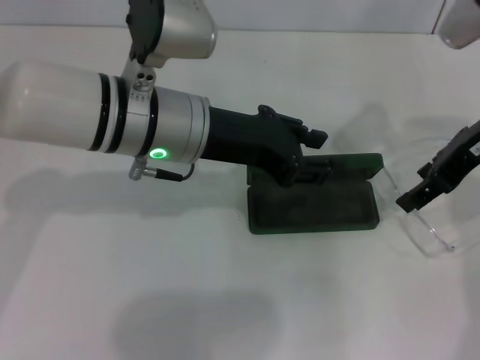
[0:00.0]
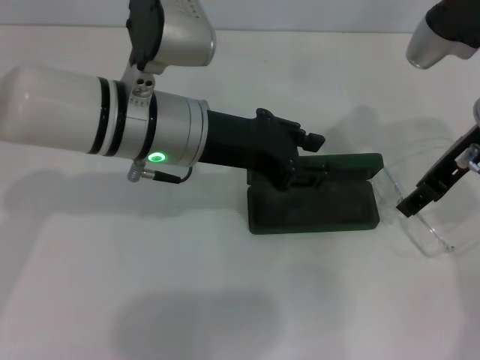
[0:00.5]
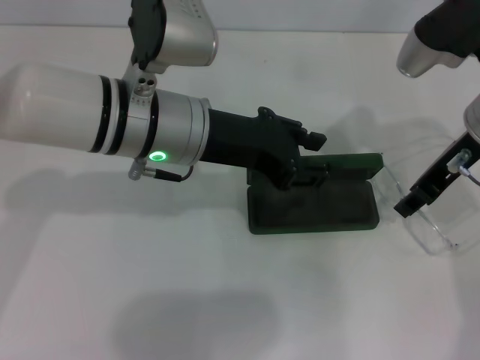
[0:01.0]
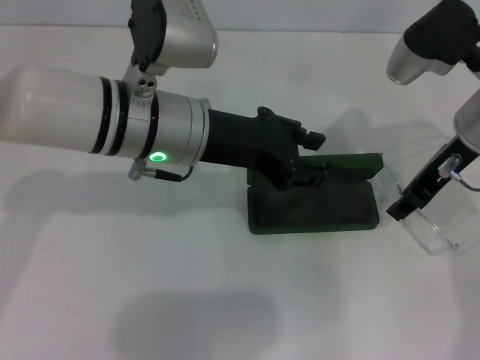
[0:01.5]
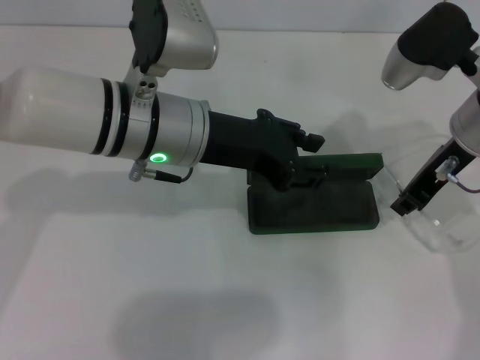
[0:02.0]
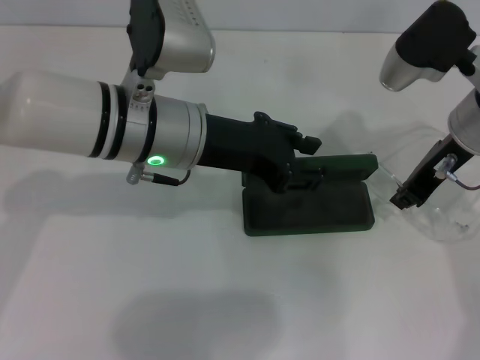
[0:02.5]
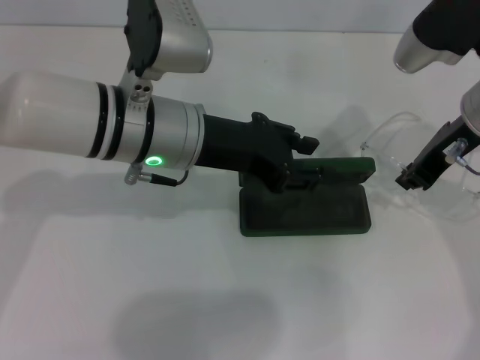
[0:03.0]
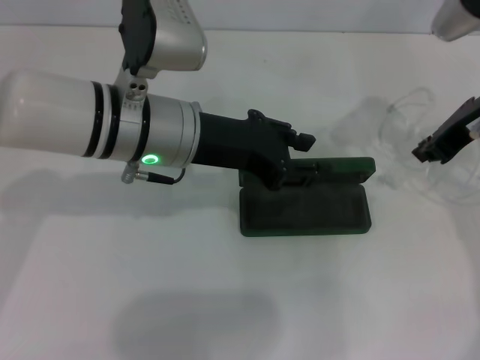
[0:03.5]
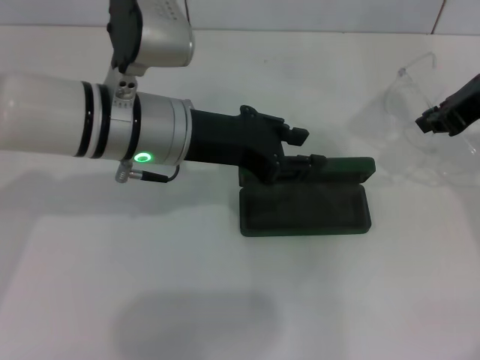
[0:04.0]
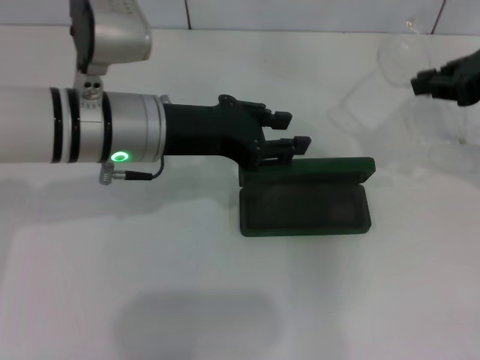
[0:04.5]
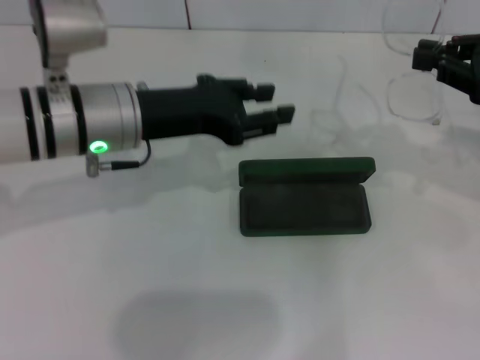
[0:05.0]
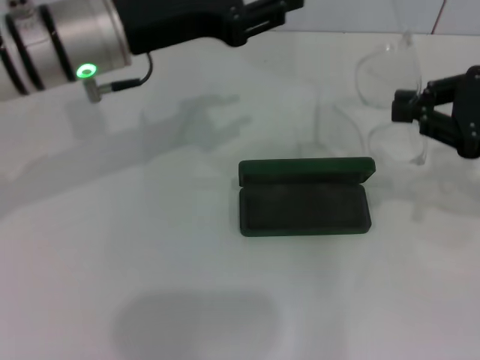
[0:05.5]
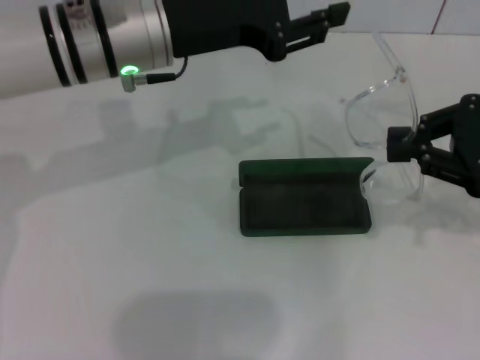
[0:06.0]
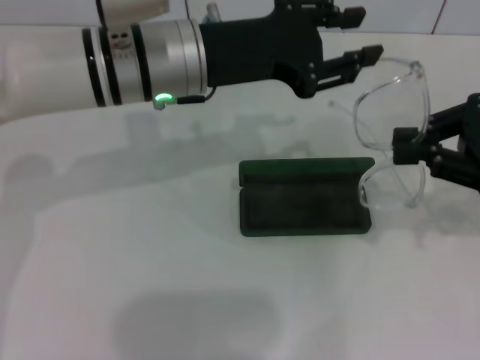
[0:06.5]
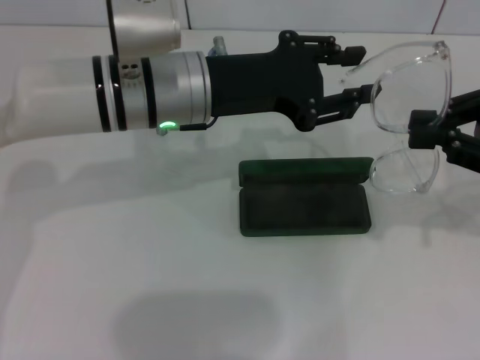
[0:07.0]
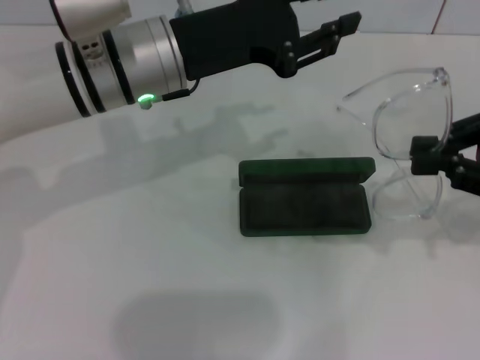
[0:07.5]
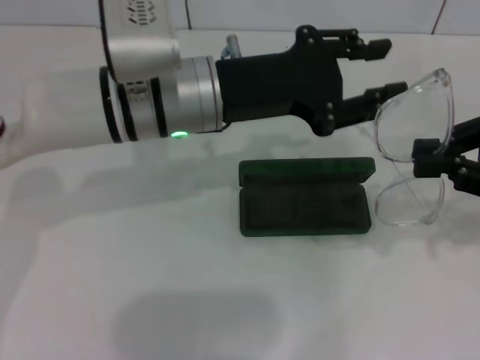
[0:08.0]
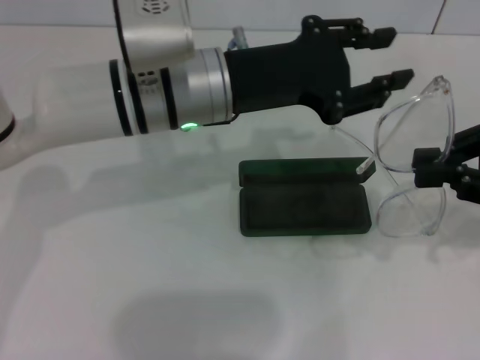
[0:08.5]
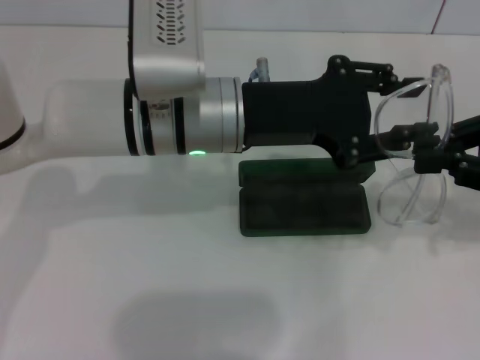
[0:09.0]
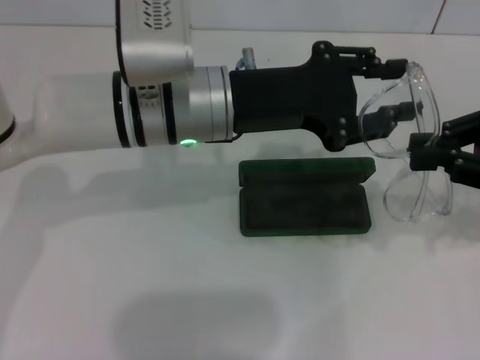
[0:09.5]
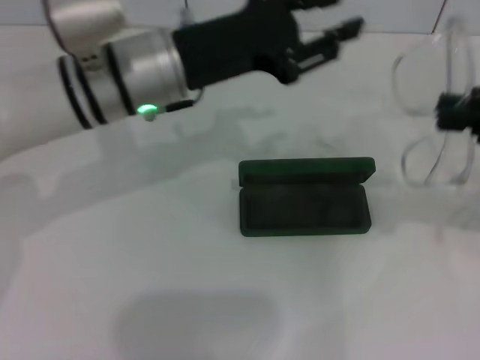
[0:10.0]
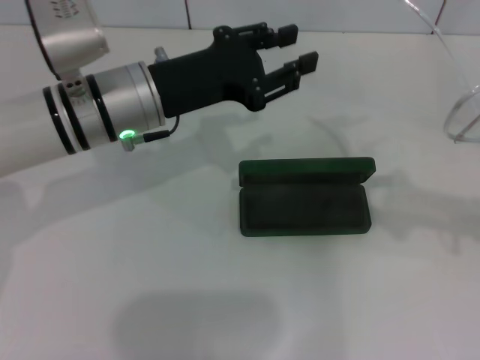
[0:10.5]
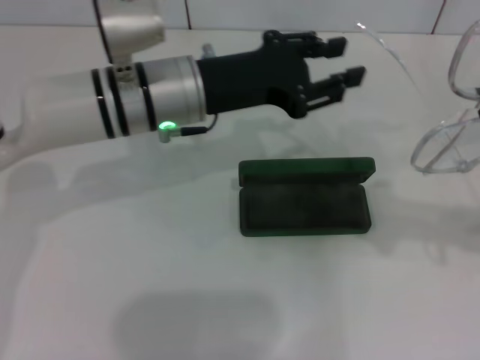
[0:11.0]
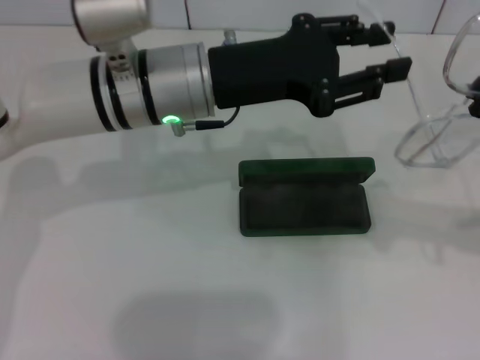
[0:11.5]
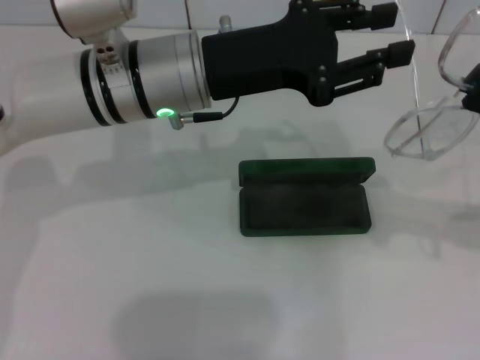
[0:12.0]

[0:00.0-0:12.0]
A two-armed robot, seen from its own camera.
Step, 0:00.0 to 0:02.5: Grab the eyeglass frame with your right hand.
0:00.0 to 0:02.0: The right gripper closes its fingers.
0:02.0 to 0:04.0: The right gripper shifts approximately 5 cm to the right.
0:04.0 to 0:06.0: The left gripper ends up some 5 cm from where it was; the right gripper is displaced backward by approximately 5 cm.
0:06.0 to 0:08.0: The left gripper changes place by about 5 cm.

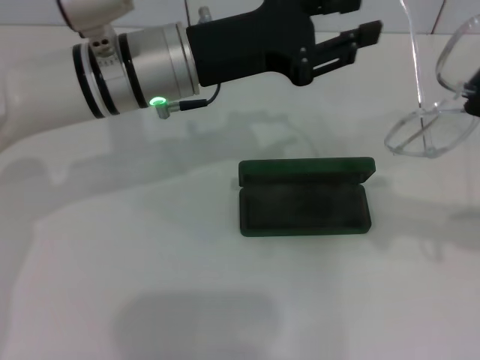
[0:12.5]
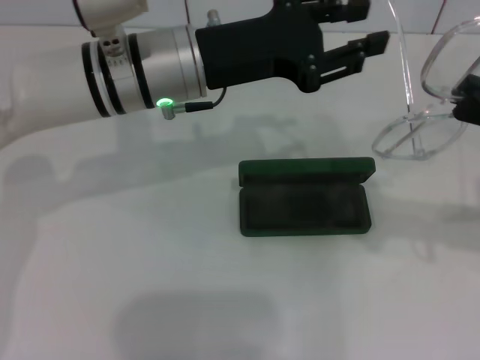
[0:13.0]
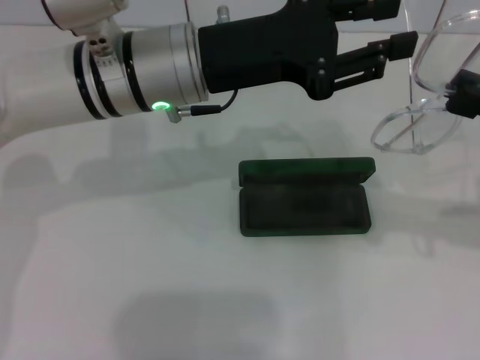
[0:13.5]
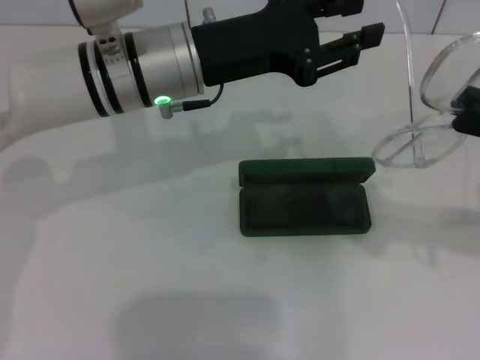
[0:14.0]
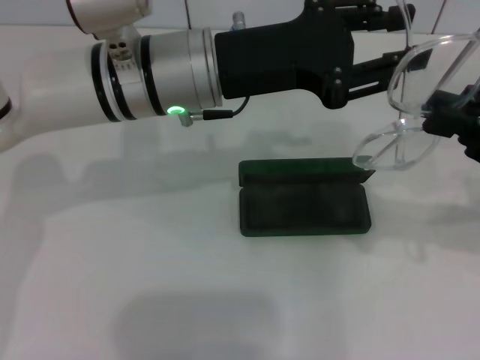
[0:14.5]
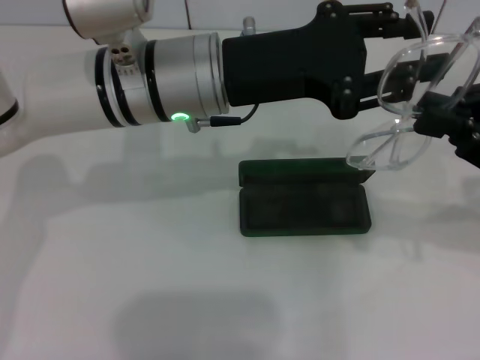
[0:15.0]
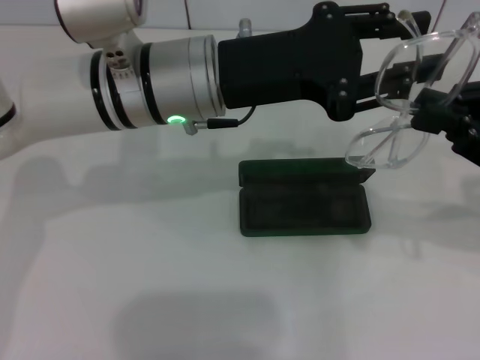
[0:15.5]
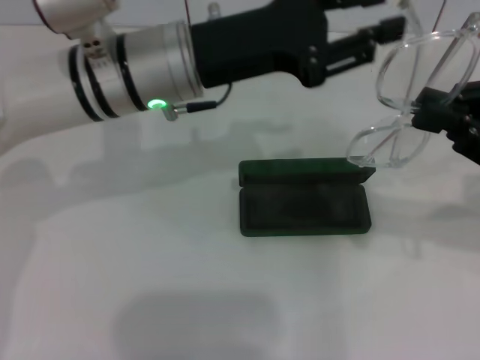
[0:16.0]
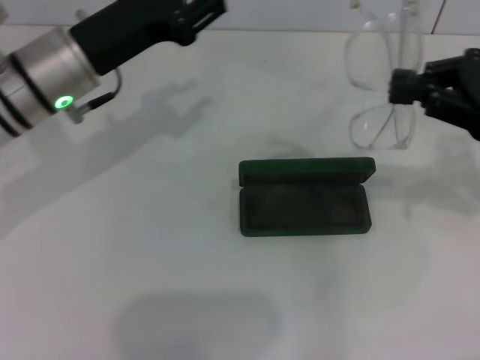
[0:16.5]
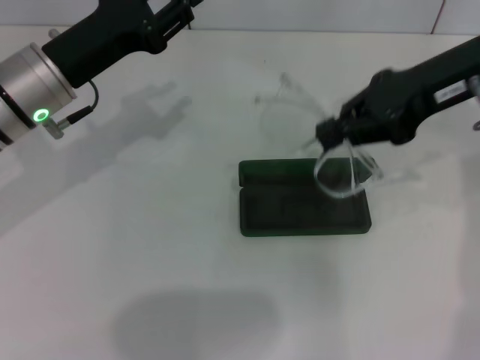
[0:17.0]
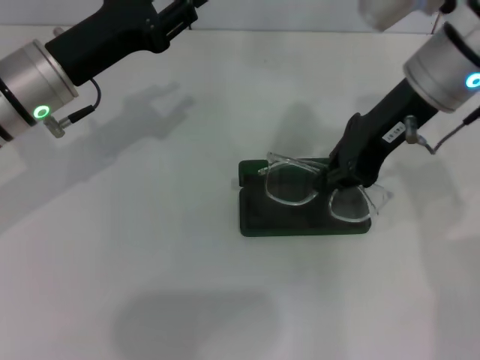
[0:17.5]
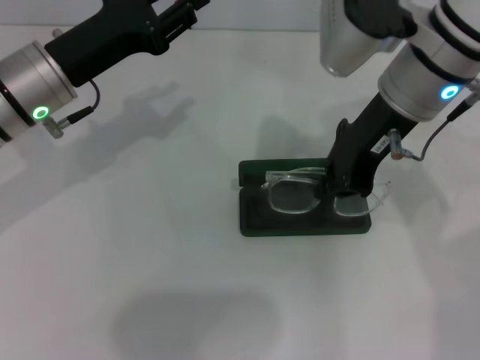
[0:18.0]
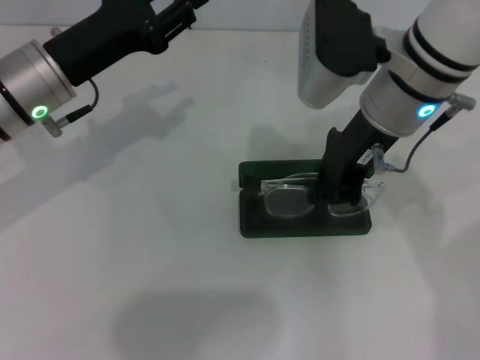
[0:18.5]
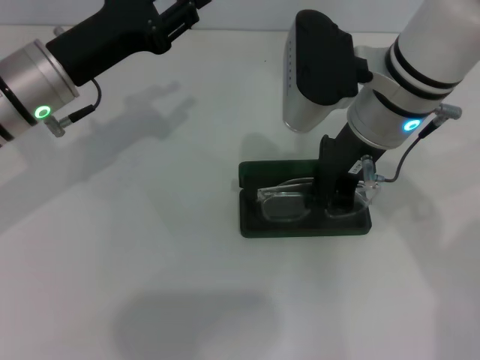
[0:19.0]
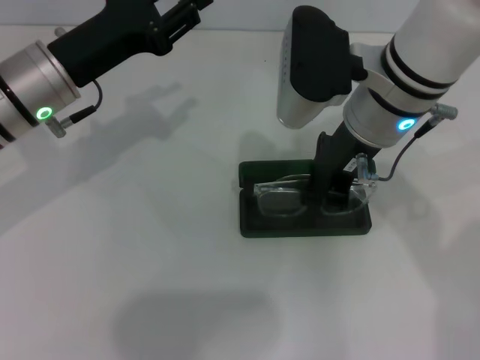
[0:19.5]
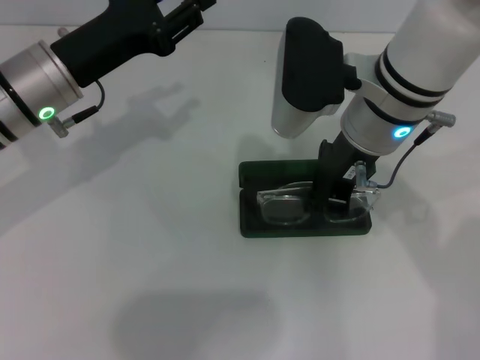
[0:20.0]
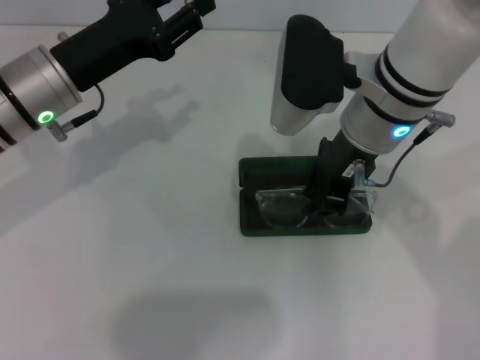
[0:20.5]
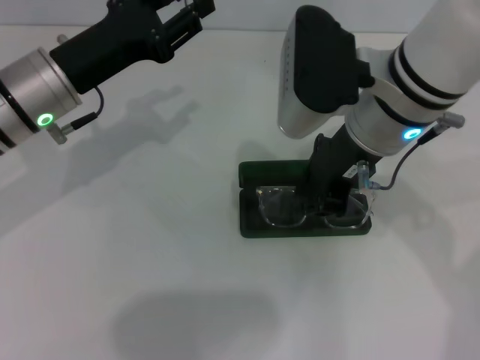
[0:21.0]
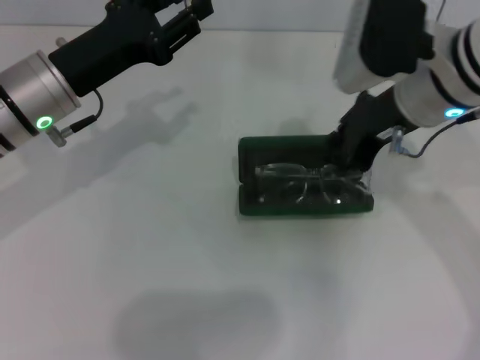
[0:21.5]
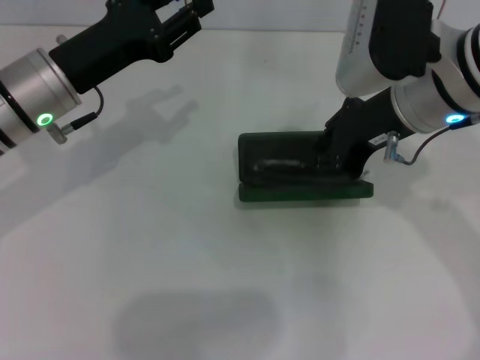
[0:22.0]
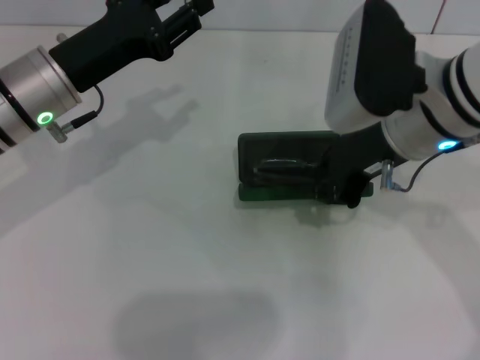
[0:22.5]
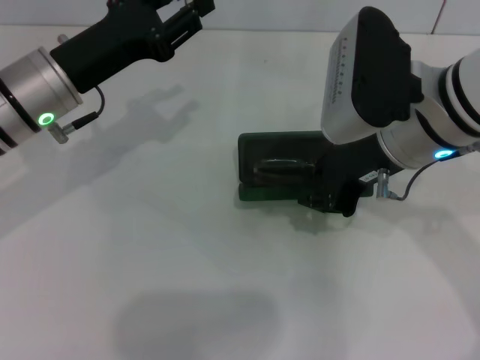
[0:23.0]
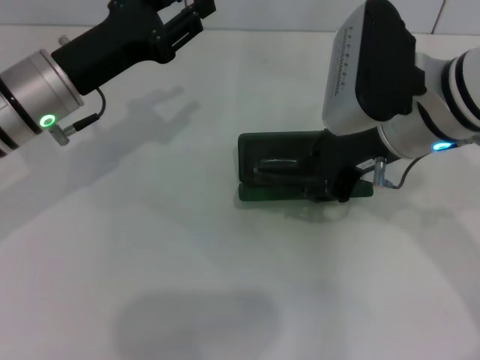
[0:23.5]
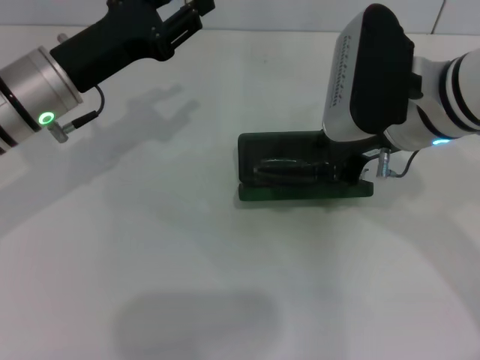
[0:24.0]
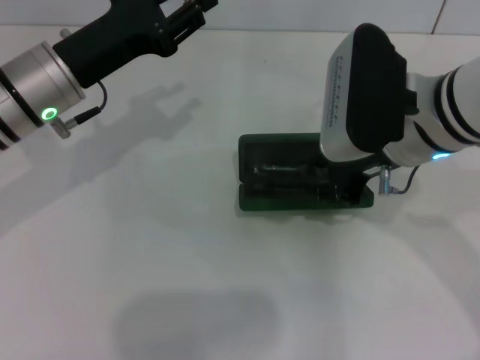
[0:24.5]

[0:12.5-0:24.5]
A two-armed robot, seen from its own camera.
Step, 0:12.5 to 0:16.0: Fold the frame with your left hand.
Step, 0:16.5 to 0:22.5: Put the glasses into the case with your right hand.
0:12.5 to 0:14.5: There are only small adjustments of the grippers.
0:14.5 to 0:16.5: The left gripper moves to the left, some 10 cm.
0:16.5 to 0:18.5: The right gripper shifts about 20 cm to the left.
0:18.5 to 0:20.5: The grippers make only small movements.
0:22.5 to 0:24.5: The grippers make only small movements.

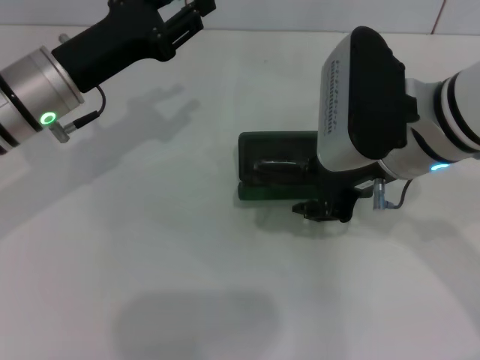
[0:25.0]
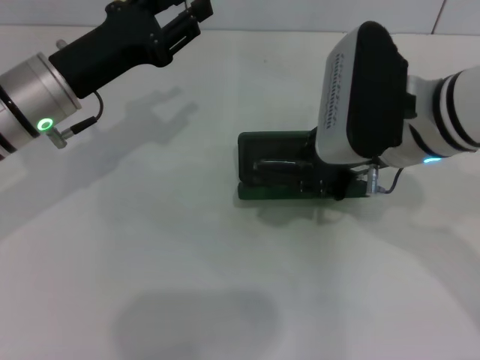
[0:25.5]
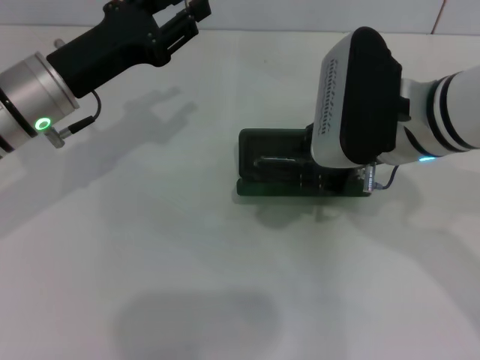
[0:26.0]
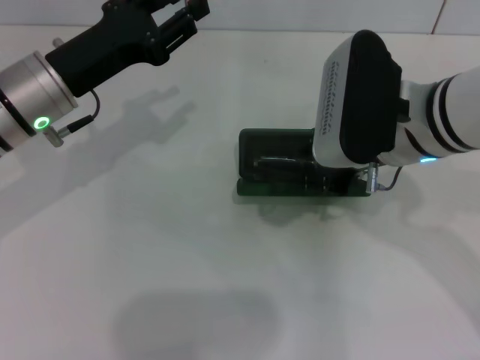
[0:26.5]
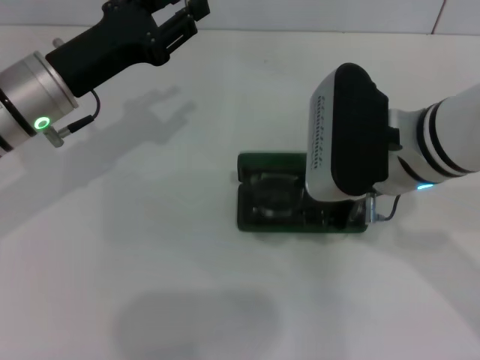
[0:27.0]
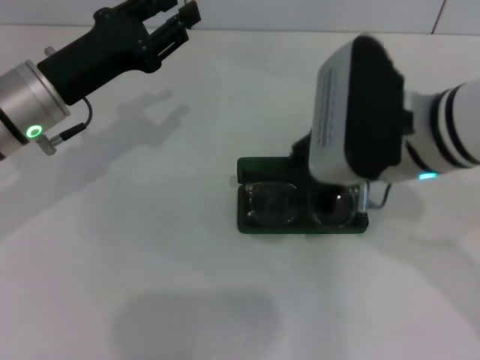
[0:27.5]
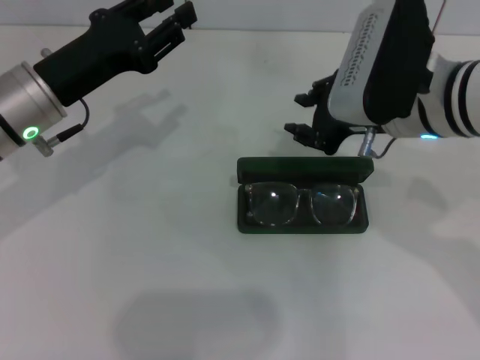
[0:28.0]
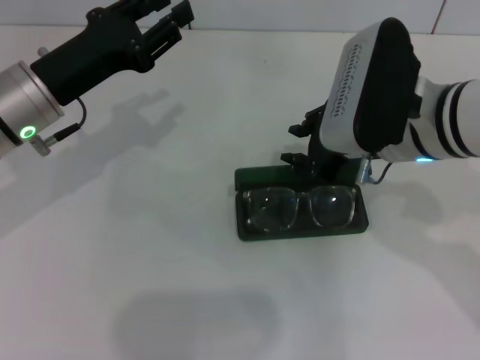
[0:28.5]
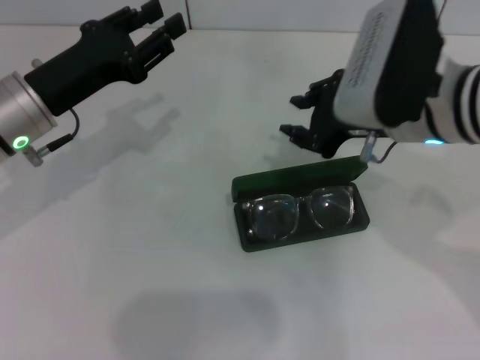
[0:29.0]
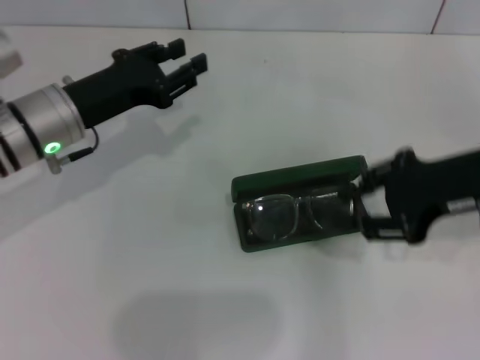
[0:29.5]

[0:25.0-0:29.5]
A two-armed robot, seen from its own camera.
0:25.0 to 0:27.0: There are only small adjustments of the grippers.
0:27.0 to 0:29.5: The right gripper travels to the right by about 10 cm.
